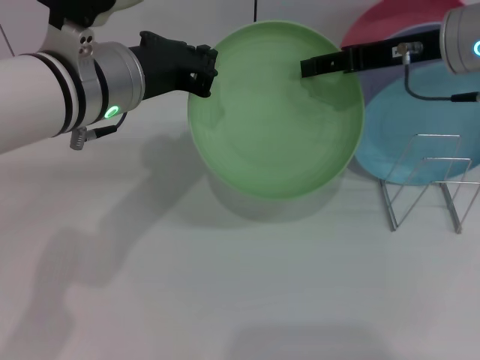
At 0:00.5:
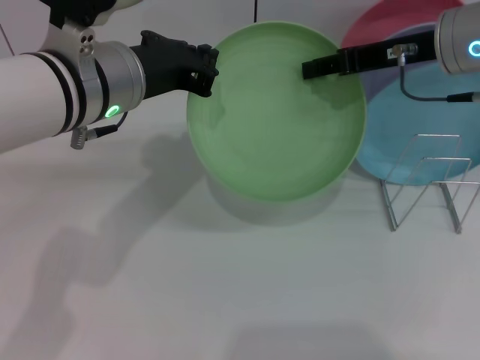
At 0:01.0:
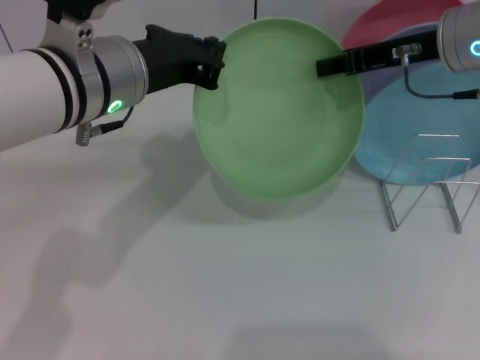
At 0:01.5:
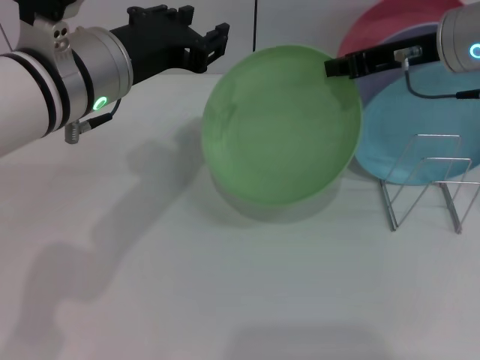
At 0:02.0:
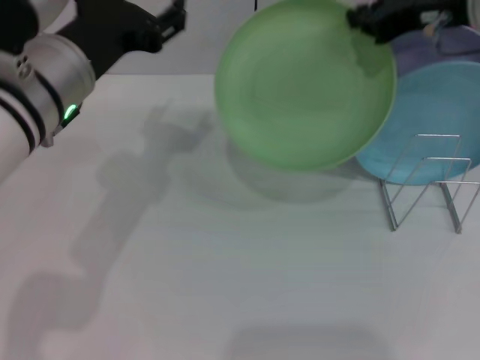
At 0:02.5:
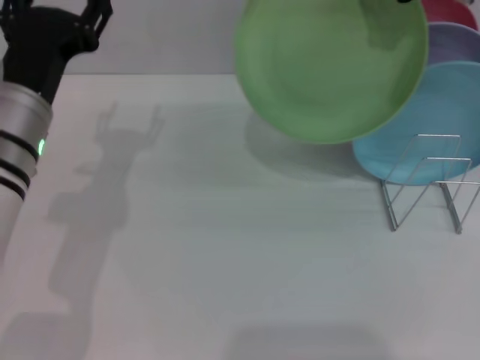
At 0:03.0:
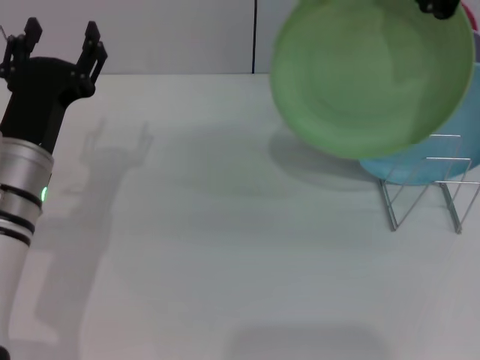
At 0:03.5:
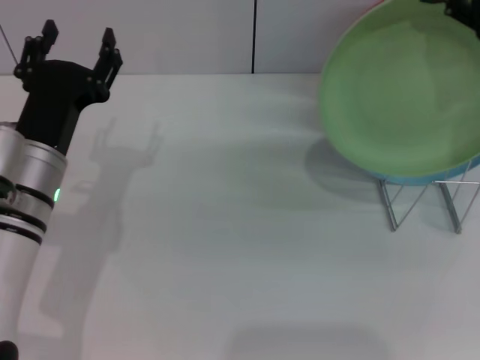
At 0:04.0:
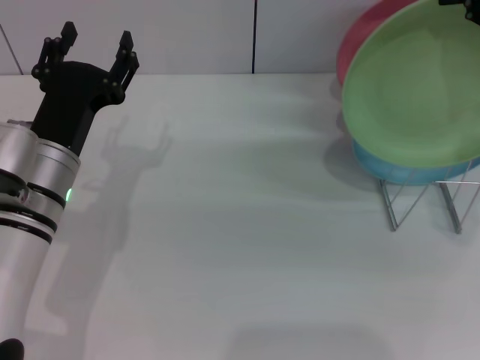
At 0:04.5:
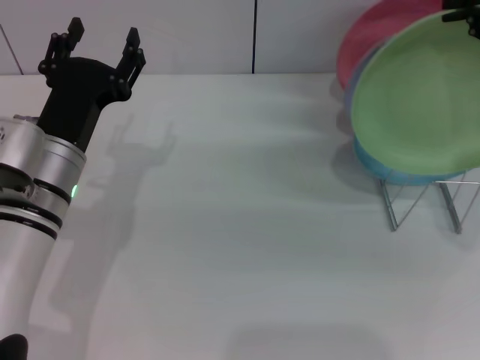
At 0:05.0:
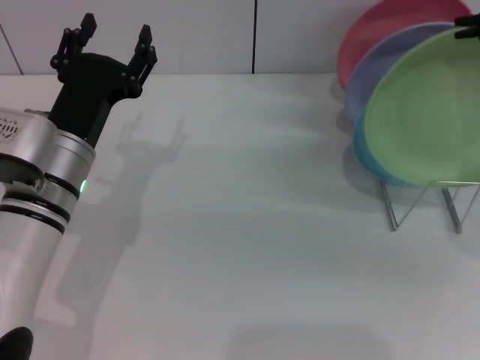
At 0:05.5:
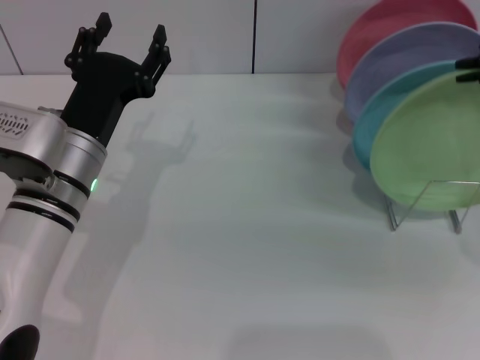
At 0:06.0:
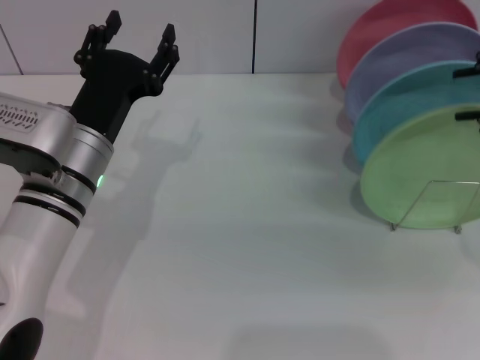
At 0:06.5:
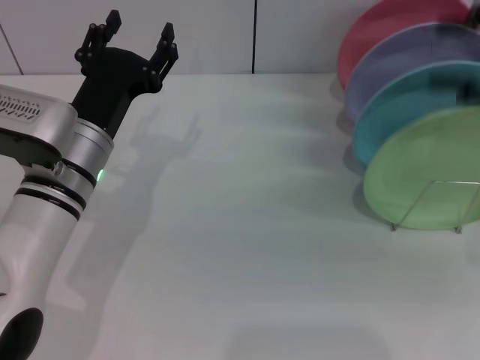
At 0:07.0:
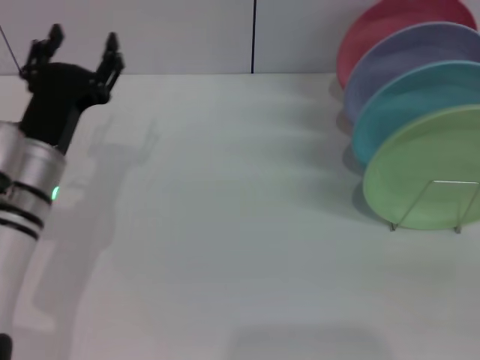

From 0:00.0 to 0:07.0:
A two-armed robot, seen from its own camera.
Task of the whole recording: Grip the plate with one hand, pass it to the other, then set it on the shelf.
Step, from 0:02.0 to 0:06.5: Place the plate on the shelf with the right gripper.
From 0:00.0 to 0:02.0: The right gripper closes its fingers; the left gripper opens its fingers.
From 0:02.0 to 0:03.5: The right gripper moves backward and upward, approximately 10 cm; the left gripper moves downward, about 10 cm.
From 0:03.5 to 0:05.0: The grippers move only a little.
From 0:05.0 to 0:07.0: The right gripper is displaced to the right, backward and downward by roughly 20 cm, and opens up.
